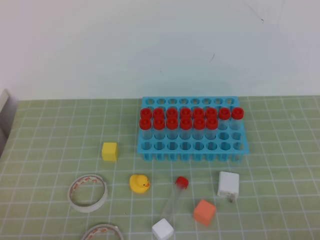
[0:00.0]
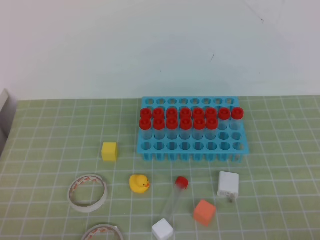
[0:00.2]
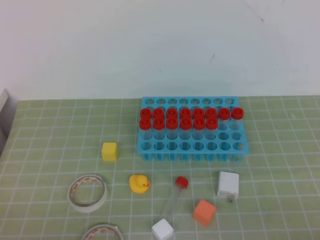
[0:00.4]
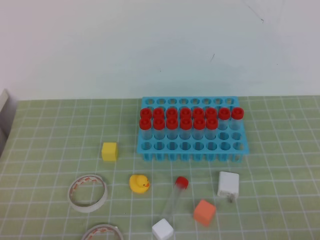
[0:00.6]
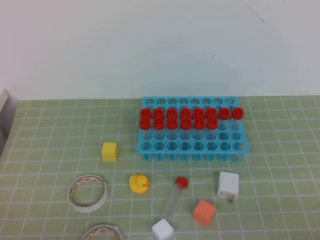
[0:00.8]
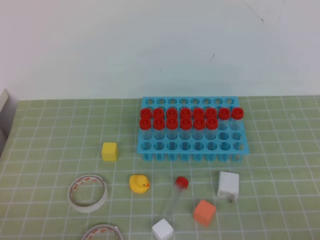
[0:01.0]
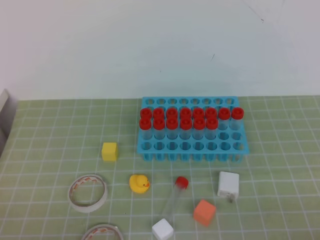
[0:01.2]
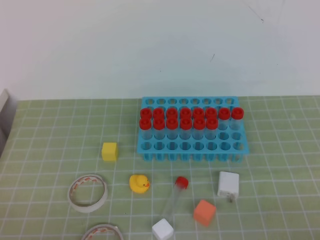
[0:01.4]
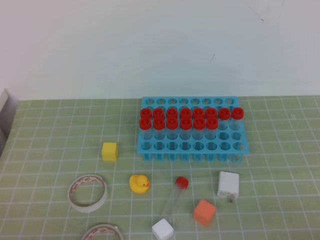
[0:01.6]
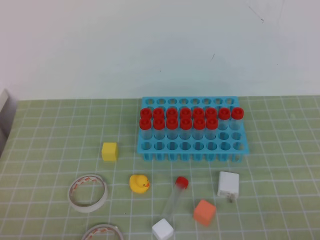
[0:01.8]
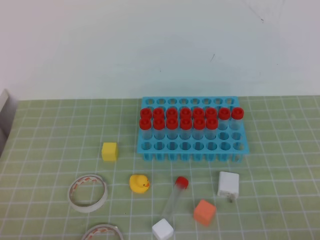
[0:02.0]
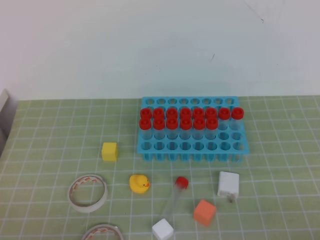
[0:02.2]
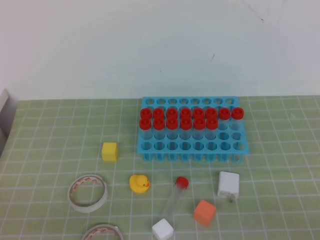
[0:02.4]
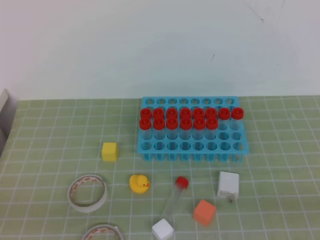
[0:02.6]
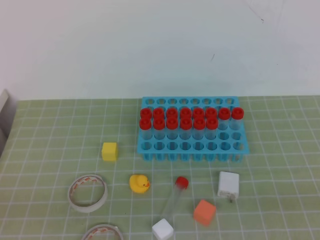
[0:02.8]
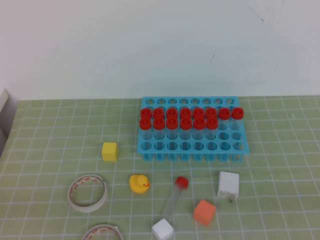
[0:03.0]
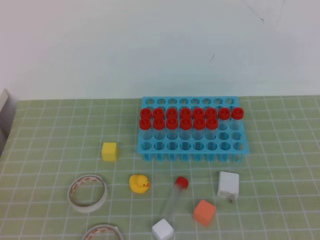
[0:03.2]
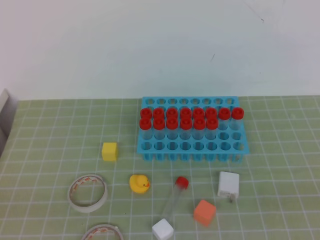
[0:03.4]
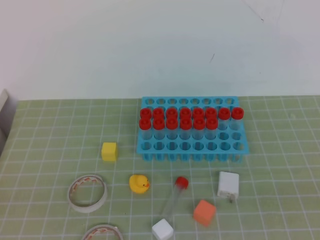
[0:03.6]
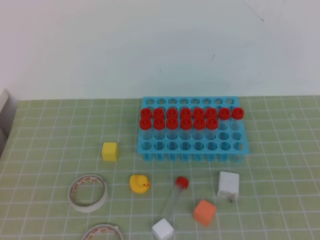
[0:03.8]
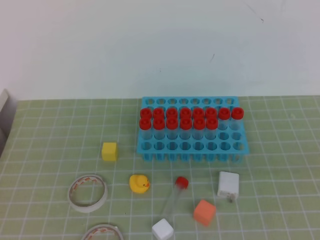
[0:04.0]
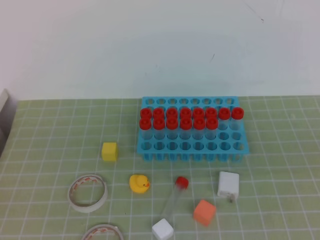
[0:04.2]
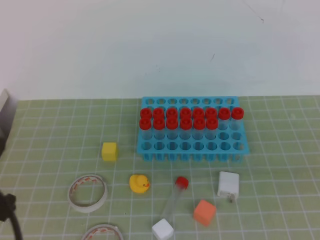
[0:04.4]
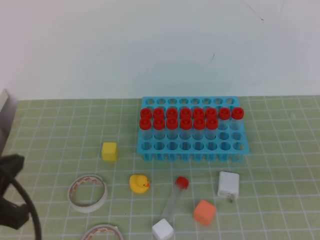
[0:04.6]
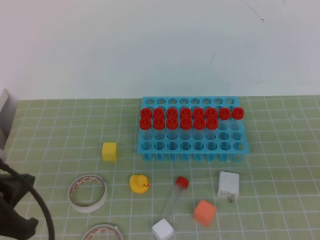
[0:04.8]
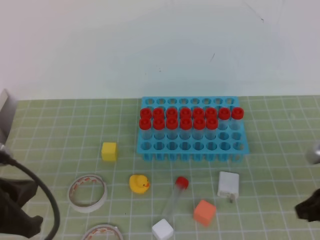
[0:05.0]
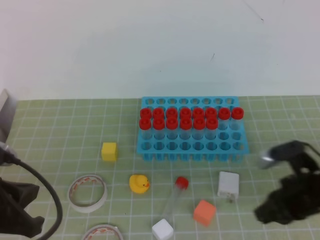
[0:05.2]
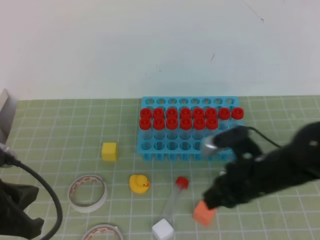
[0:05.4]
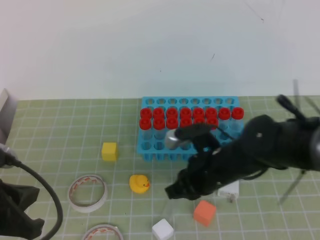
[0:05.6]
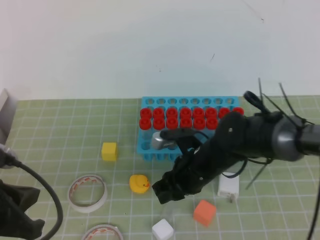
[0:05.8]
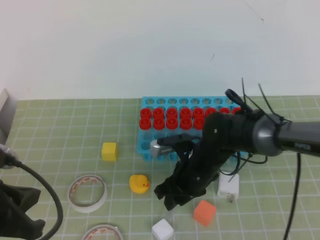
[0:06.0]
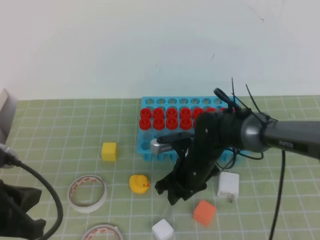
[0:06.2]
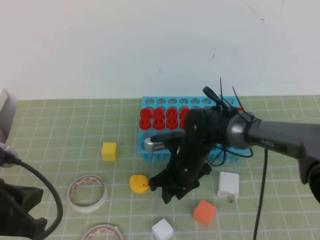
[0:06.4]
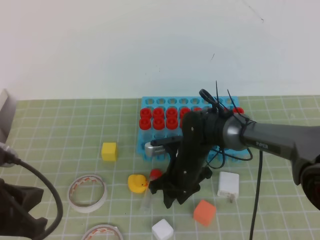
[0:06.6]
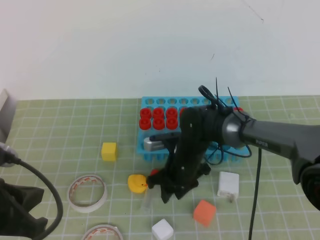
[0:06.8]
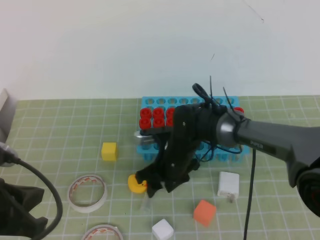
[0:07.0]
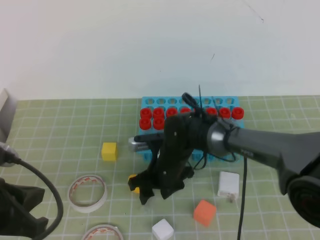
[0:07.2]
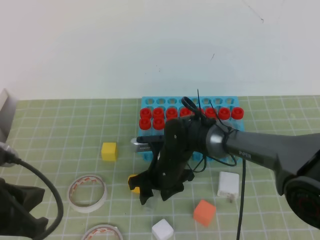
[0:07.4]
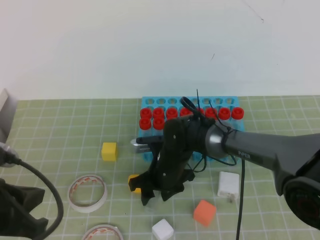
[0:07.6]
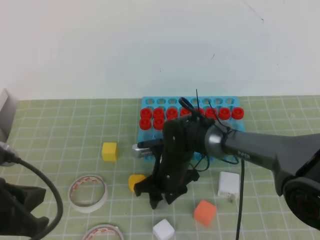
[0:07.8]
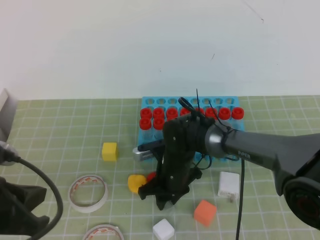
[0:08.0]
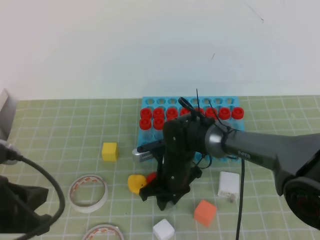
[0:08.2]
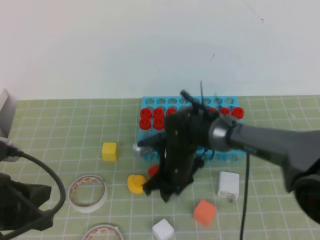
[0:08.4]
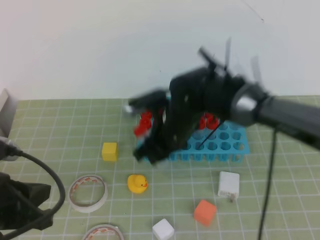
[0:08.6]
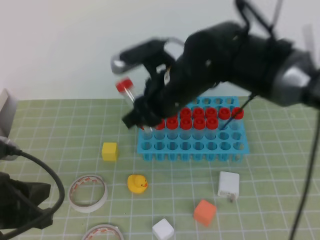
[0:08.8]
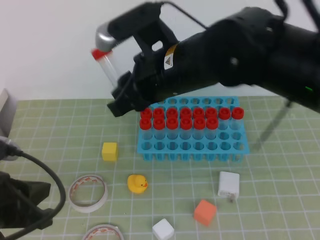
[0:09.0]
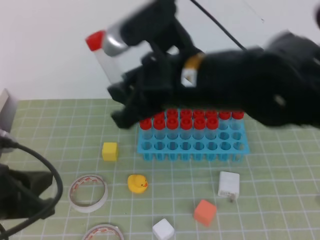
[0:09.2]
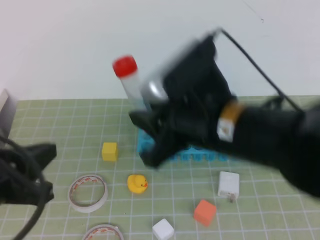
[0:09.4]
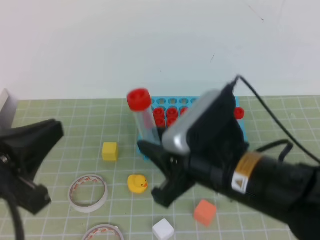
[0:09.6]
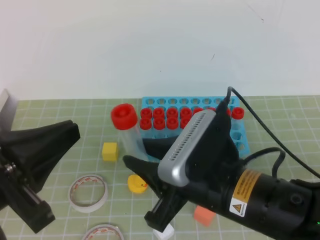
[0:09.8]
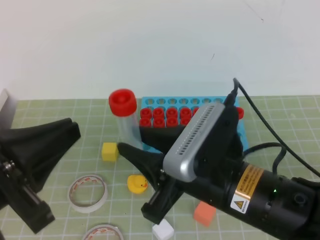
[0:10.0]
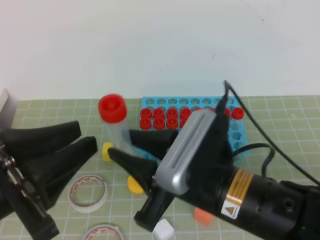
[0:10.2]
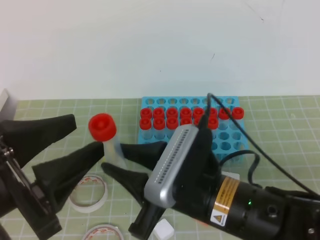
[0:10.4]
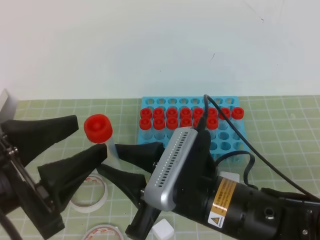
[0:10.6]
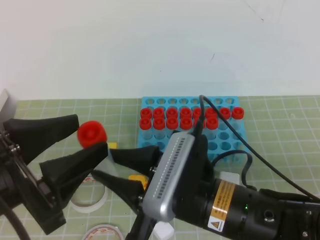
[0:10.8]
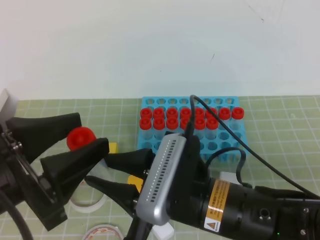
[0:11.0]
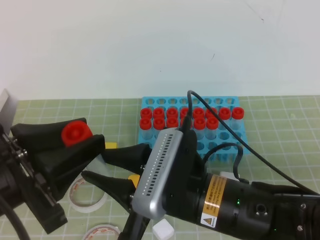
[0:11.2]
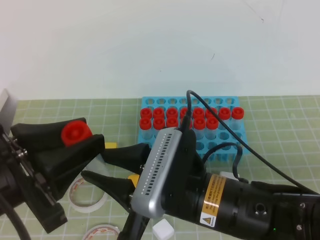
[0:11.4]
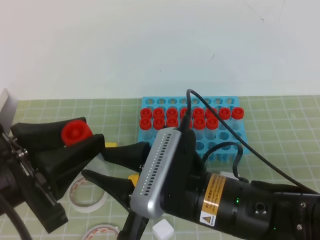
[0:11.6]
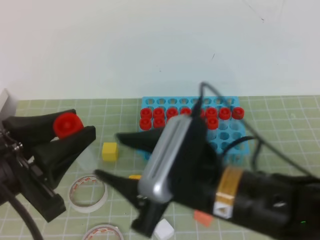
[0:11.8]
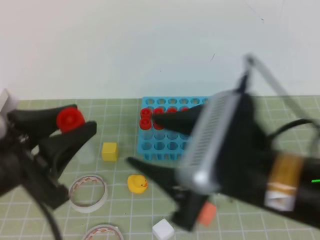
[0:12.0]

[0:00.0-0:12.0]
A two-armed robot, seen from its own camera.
0:00.0 to 0:01.6: Both grippers stay about where they are.
0:03.0 to 0:04.4: The left gripper travels upward and forward by about 10 cm.
0:04.4 to 0:06.0: The left gripper moves downward, approximately 5 cm, while the right gripper shifts approximately 40 cm to the left, forward and downward, and opens.
0:06.0 to 0:07.6: The right gripper travels to the left by about 5 cm, and opens its fingers.
0:07.6 to 0:09.0: The right gripper heads upward, covering approximately 25 cm, and closes up.
0:09.0 to 0:10.4: The left gripper travels upward by roughly 5 cm, and opens its fingers; the right gripper is displaced backward and downward by approximately 15 cm.
0:10.4 to 0:12.0: The right gripper shifts approximately 5 cm upward, and opens up.

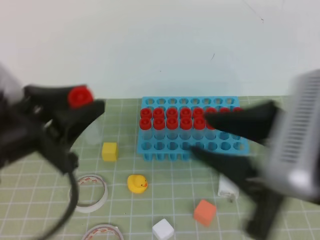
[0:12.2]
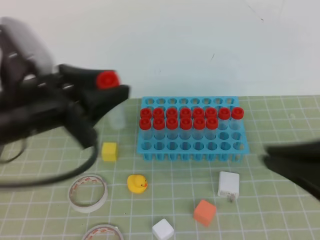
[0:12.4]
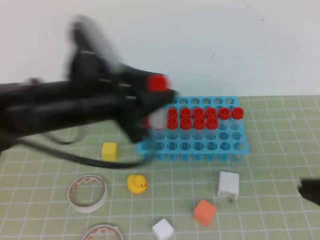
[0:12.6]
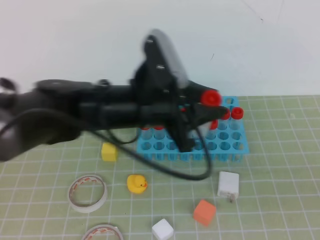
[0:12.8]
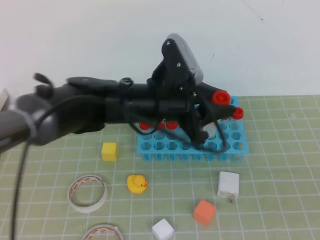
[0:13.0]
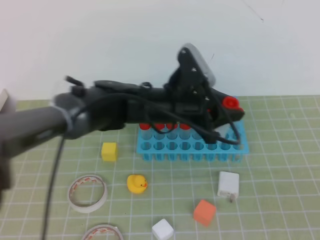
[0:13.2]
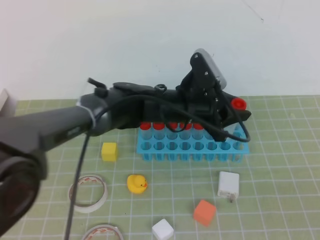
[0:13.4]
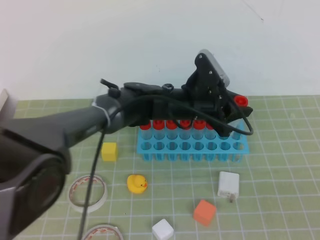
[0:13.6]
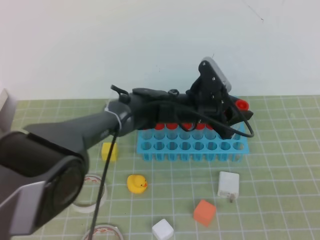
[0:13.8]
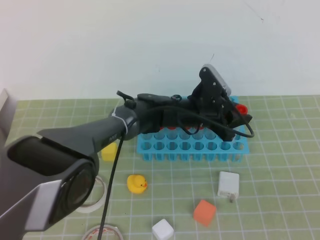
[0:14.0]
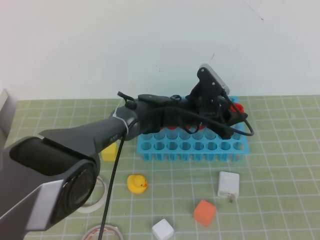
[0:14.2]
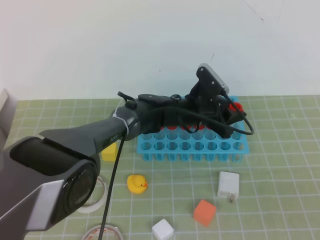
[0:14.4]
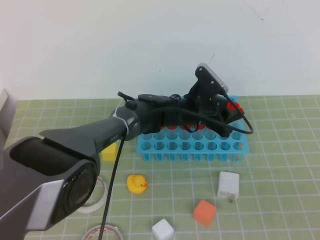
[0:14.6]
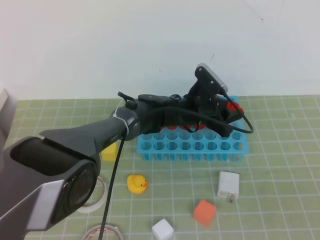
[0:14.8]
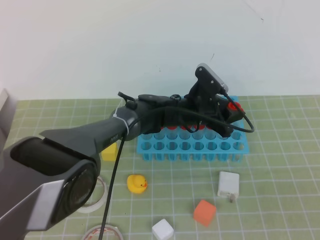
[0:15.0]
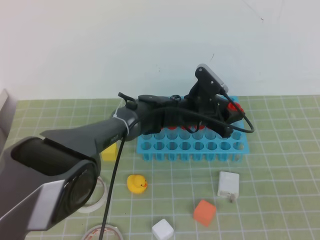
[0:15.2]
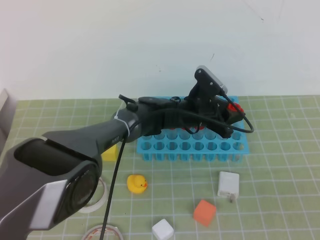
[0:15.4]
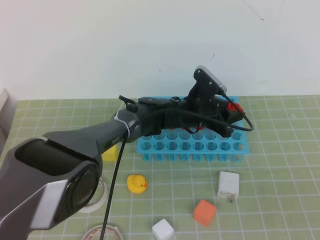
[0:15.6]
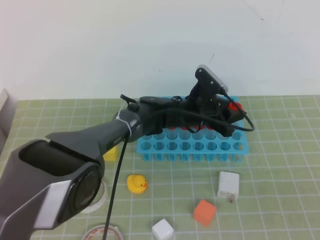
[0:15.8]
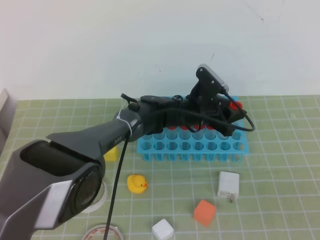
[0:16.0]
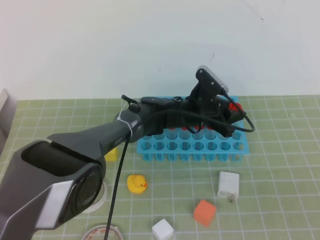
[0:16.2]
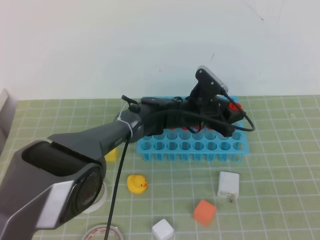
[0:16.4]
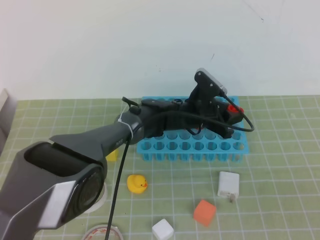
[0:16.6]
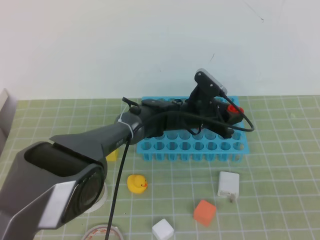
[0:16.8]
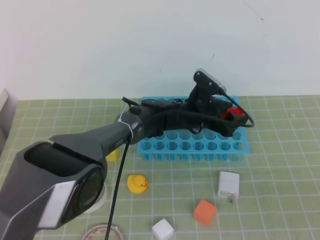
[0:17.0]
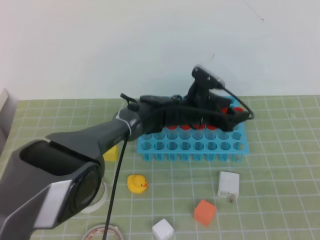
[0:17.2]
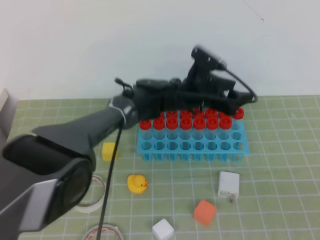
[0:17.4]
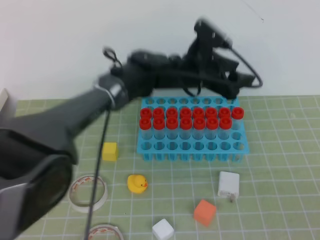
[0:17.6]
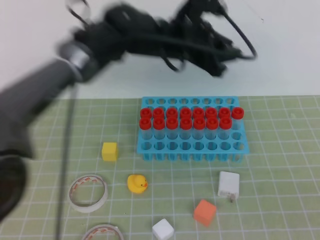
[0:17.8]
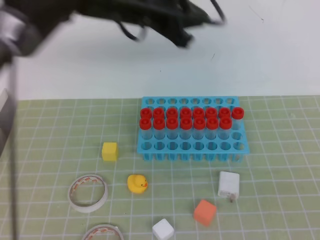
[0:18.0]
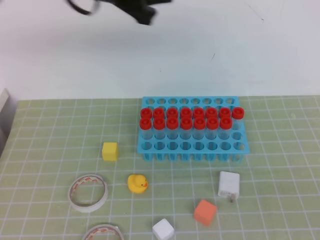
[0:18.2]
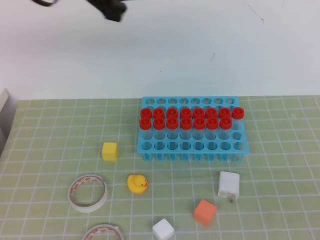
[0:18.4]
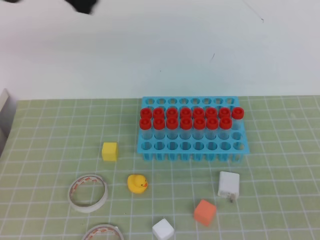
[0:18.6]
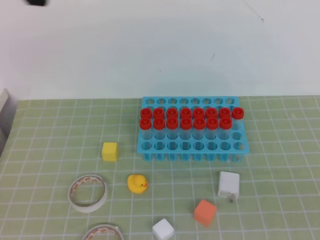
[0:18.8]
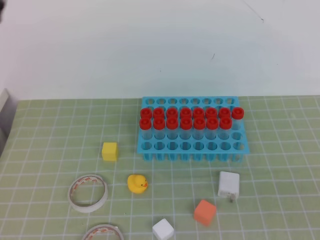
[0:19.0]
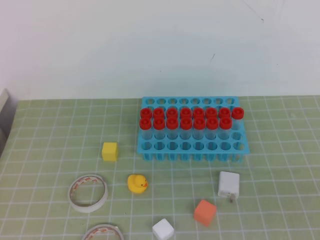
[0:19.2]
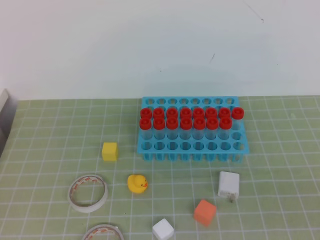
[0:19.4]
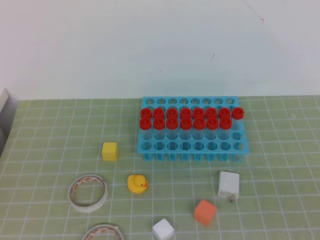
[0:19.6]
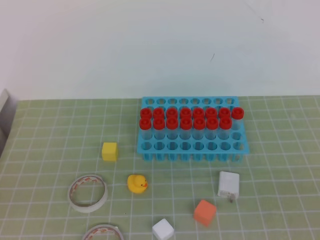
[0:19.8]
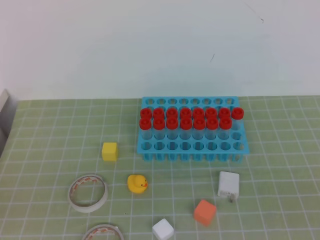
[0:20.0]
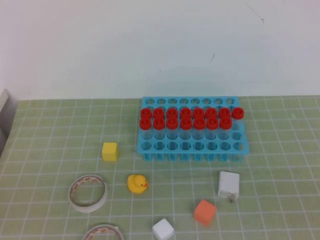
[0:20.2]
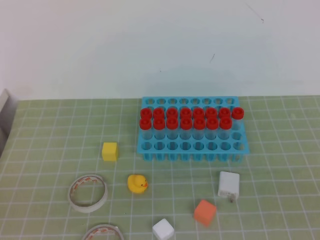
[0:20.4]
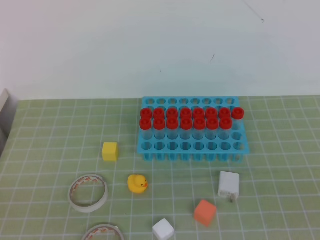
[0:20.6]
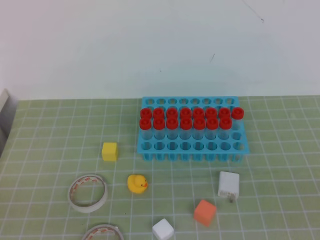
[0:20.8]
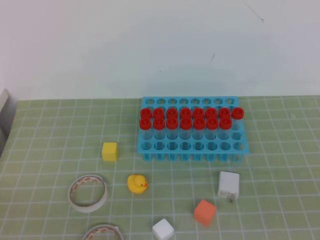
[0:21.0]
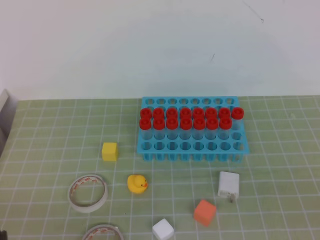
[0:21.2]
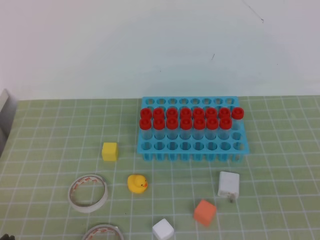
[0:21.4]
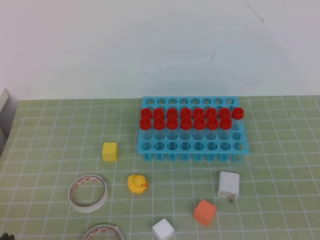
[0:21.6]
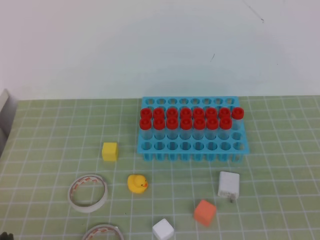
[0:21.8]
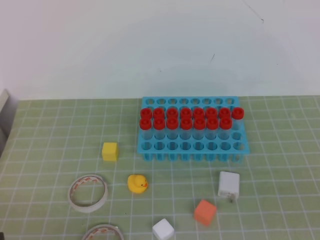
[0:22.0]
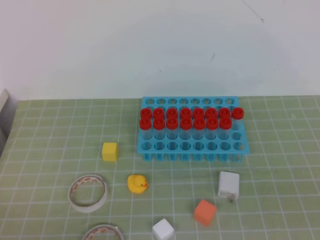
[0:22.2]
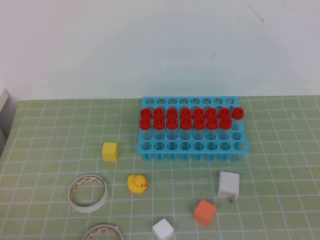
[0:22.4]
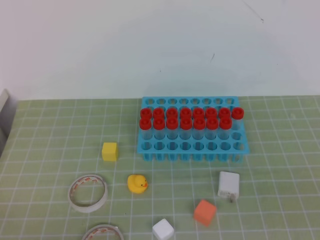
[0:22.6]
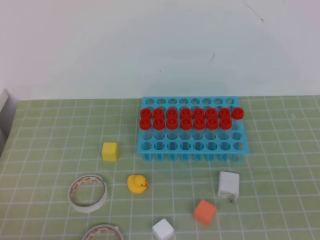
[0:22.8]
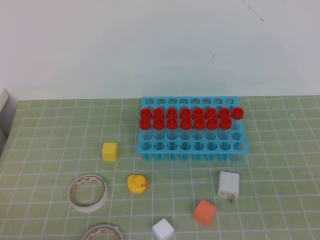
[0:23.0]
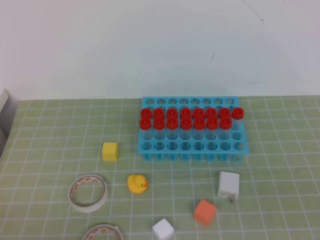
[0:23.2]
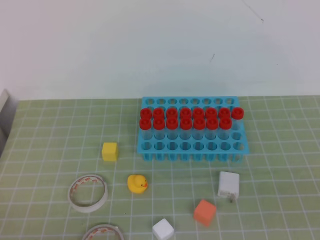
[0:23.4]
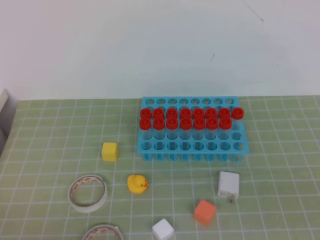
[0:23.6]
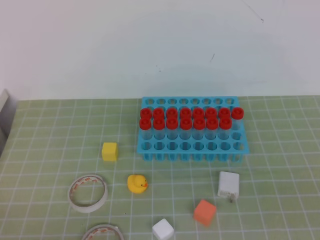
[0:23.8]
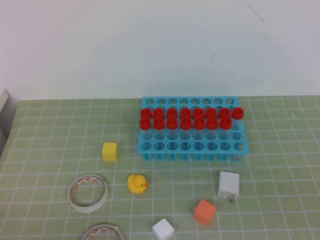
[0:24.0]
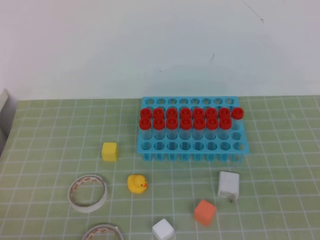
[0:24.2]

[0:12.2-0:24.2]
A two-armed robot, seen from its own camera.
0:12.2 to 0:13.8: The right gripper heads to the right and downward, covering roughly 20 cm, and closes up. The left gripper travels forward, to the right and downward by roughly 35 cm.
0:13.8 to 0:15.2: There are only small adjustments of the grippers.
0:15.2 to 0:16.6: The grippers make only small movements.
0:16.6 to 0:18.2: The left gripper is displaced upward and to the left by roughly 35 cm, and closes its fingers.
0:18.2 to 0:19.8: The left gripper goes roughly 35 cm backward and to the left.
0:22.6 to 0:24.2: Both grippers stay about where they are.
